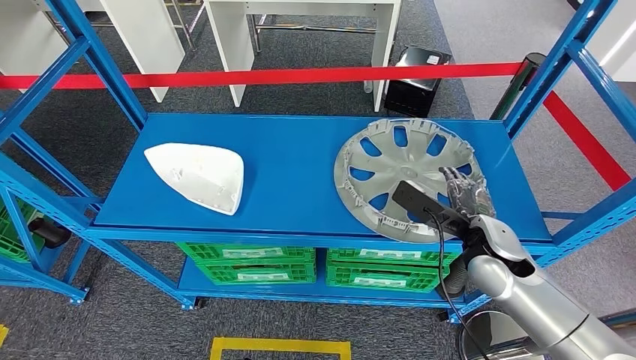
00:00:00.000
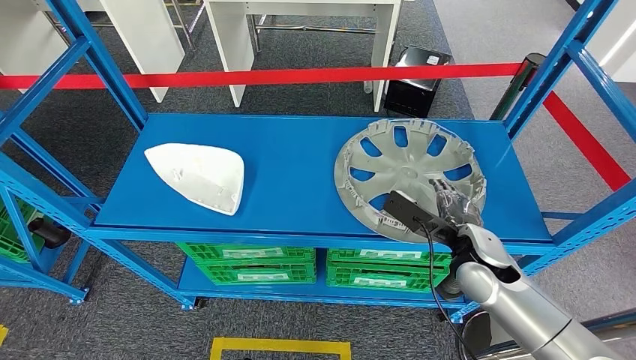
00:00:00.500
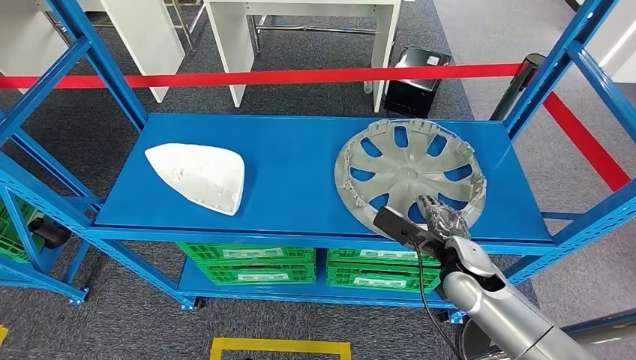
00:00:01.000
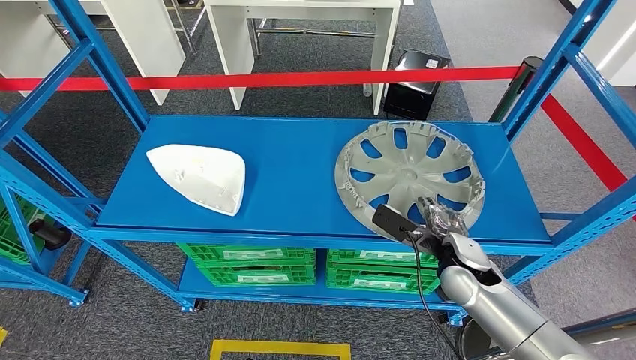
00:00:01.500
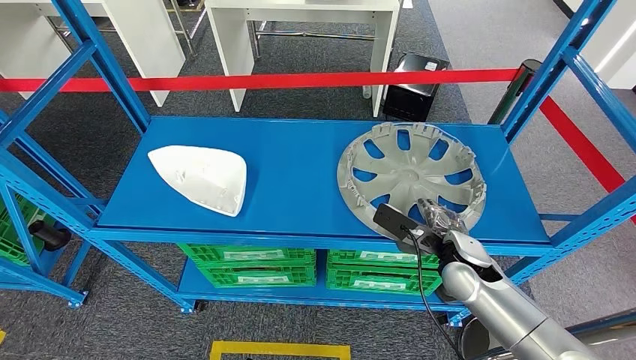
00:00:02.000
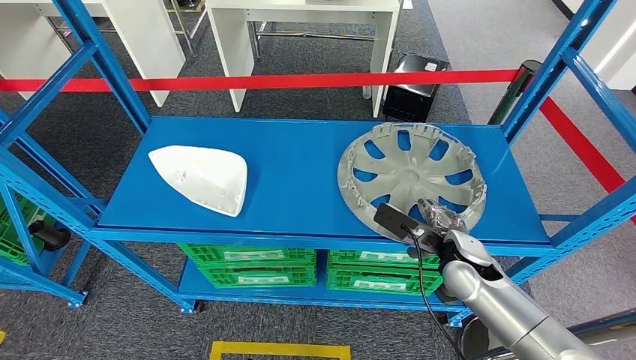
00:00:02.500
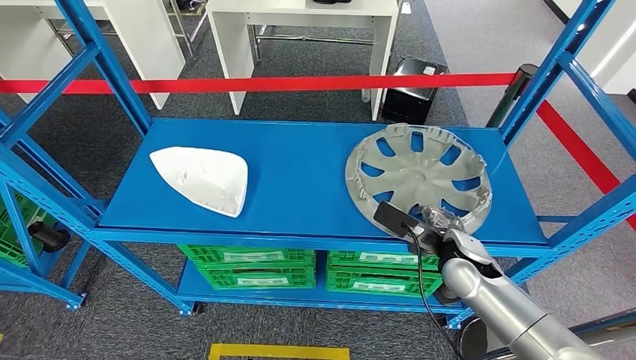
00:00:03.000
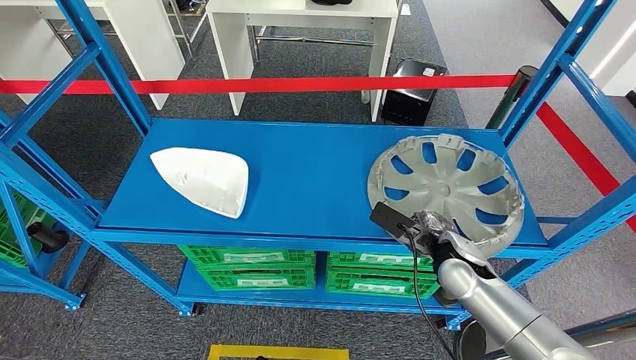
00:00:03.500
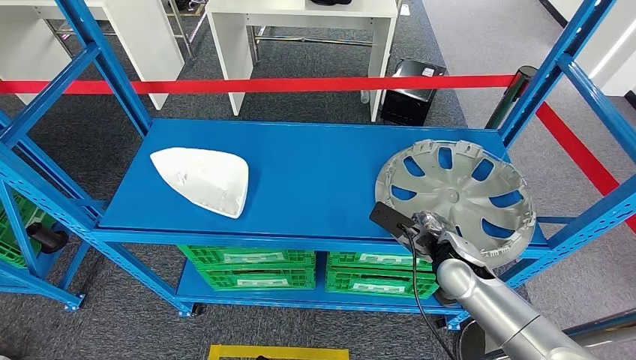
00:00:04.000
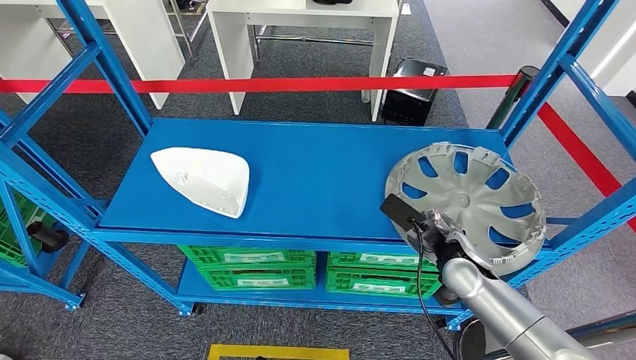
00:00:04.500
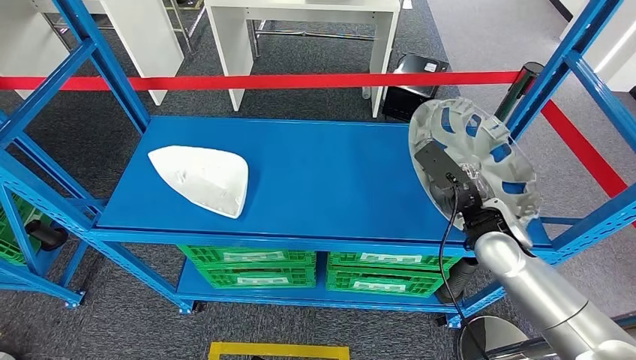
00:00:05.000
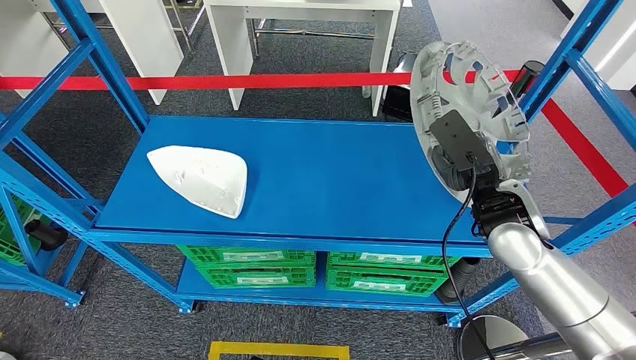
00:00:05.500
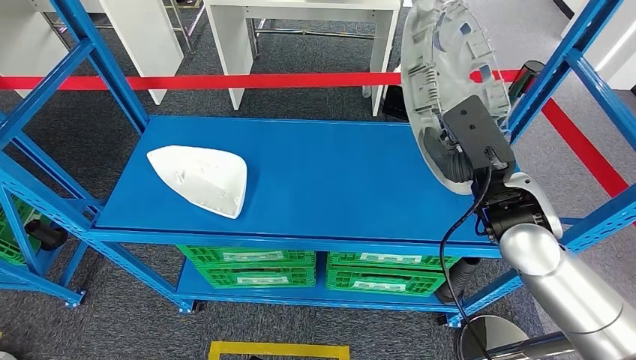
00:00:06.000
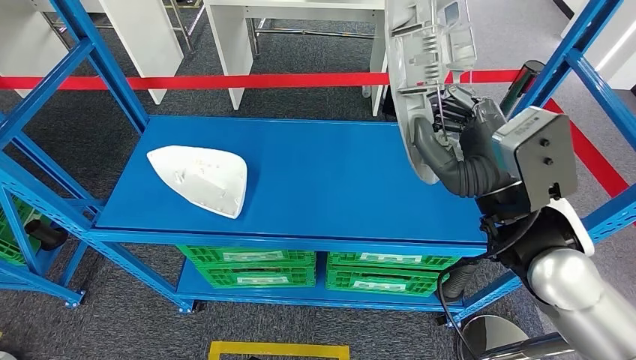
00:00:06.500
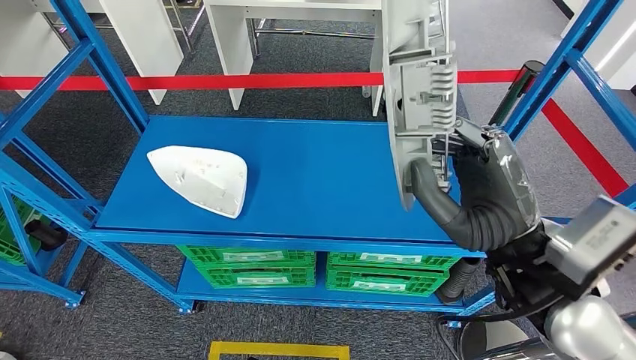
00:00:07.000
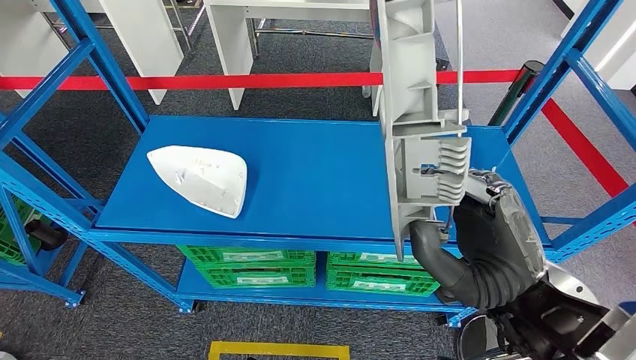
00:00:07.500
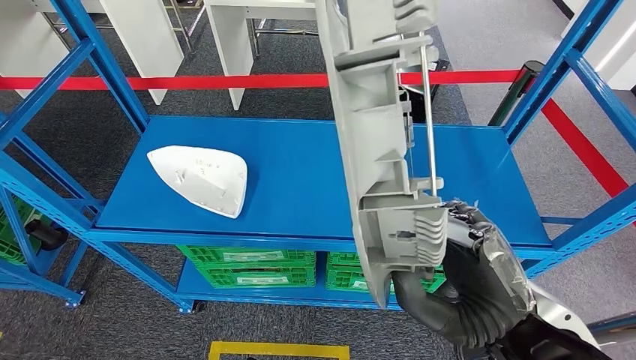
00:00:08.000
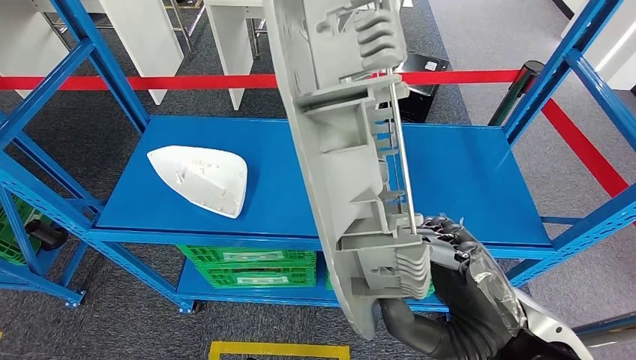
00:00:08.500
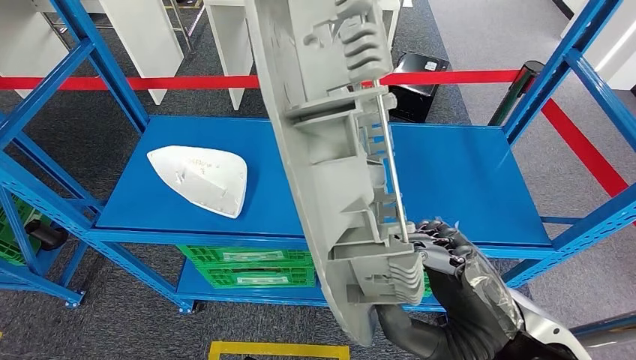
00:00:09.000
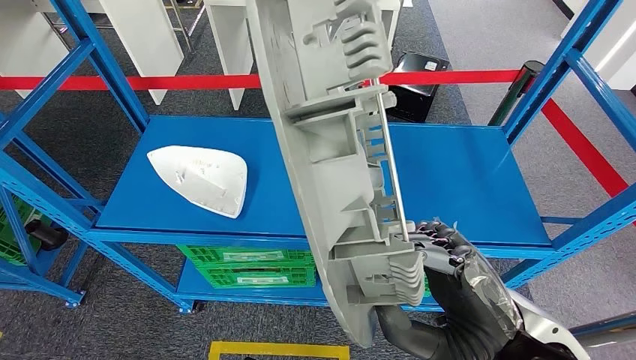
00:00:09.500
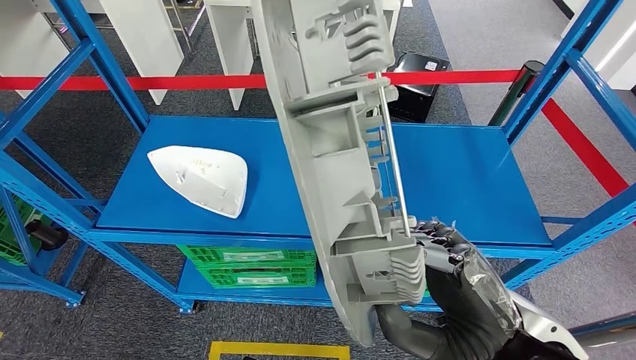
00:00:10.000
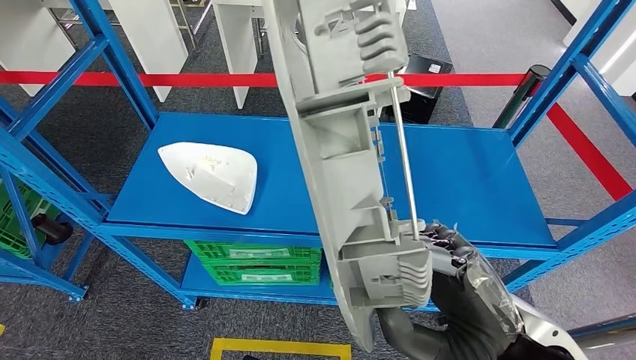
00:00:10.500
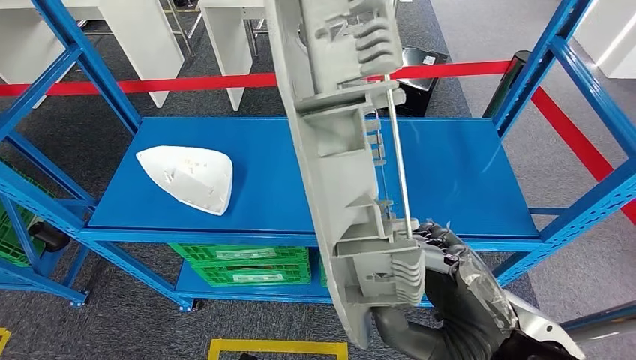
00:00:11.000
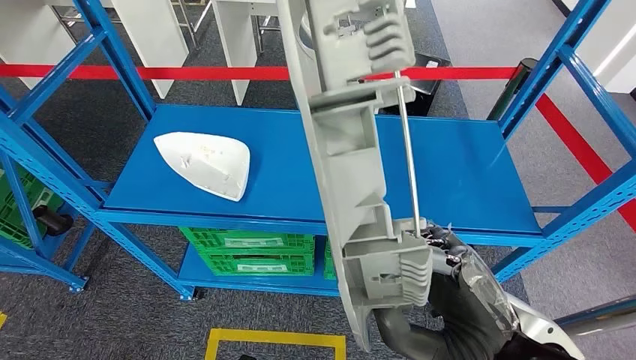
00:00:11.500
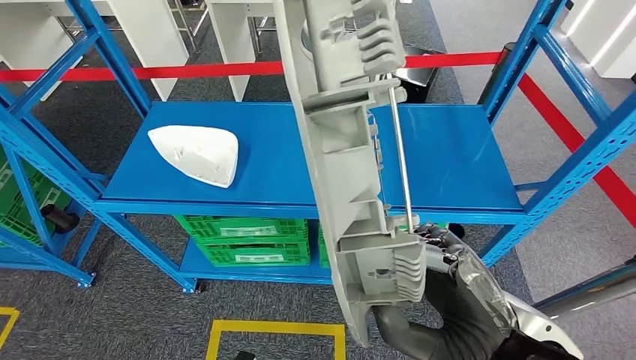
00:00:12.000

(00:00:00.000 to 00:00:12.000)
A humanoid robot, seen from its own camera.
Step, 00:00:00.000 - 00:00:07.500: Pick up the large material from the shelf.

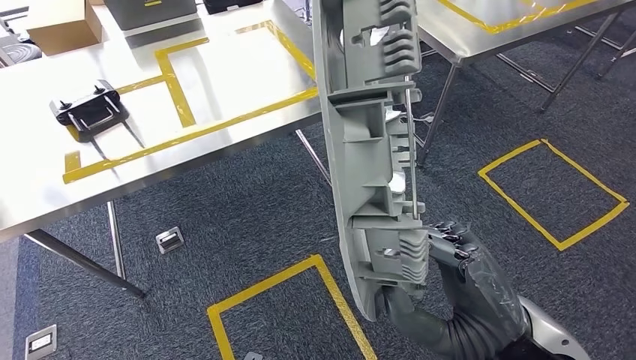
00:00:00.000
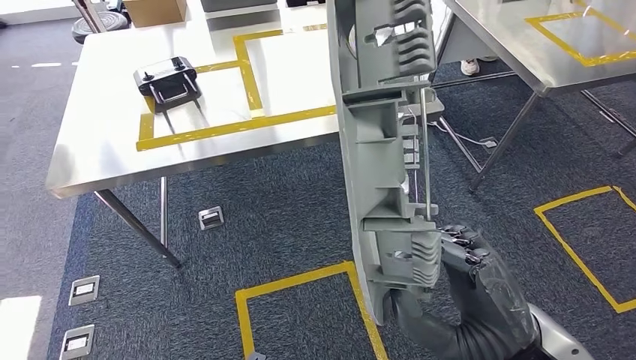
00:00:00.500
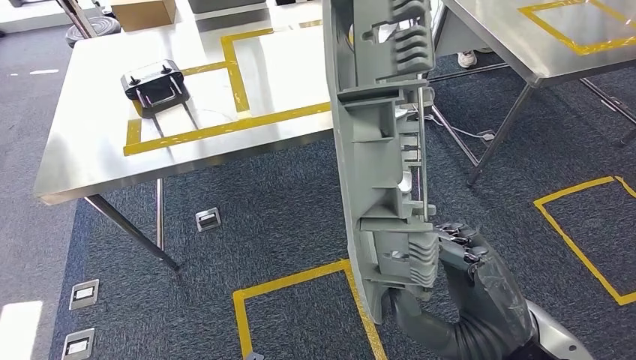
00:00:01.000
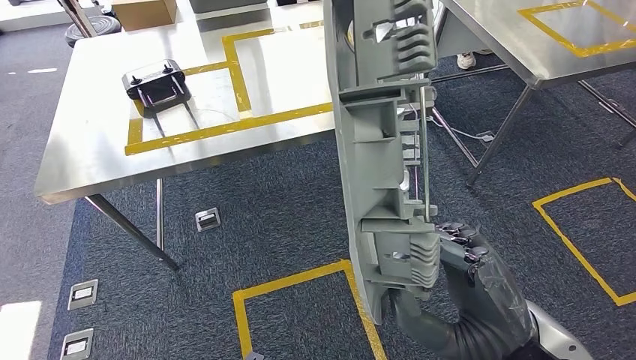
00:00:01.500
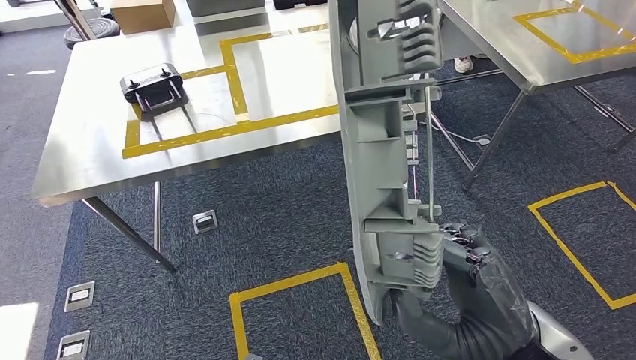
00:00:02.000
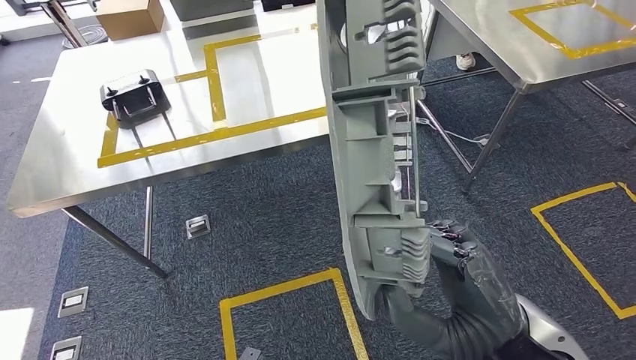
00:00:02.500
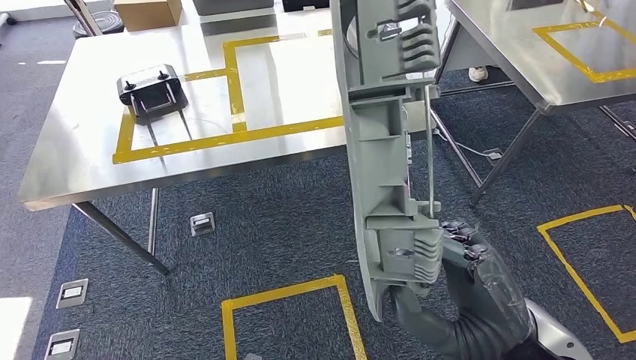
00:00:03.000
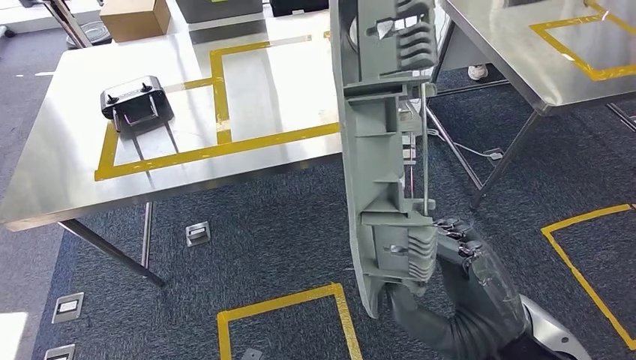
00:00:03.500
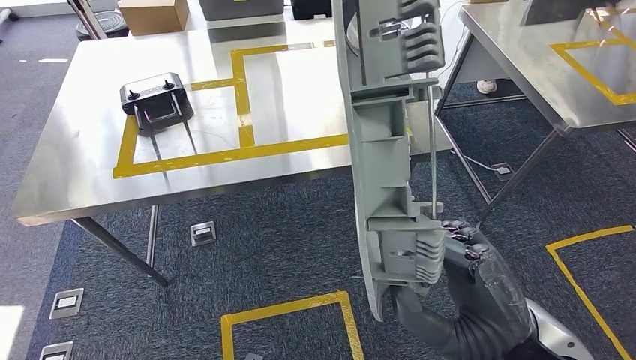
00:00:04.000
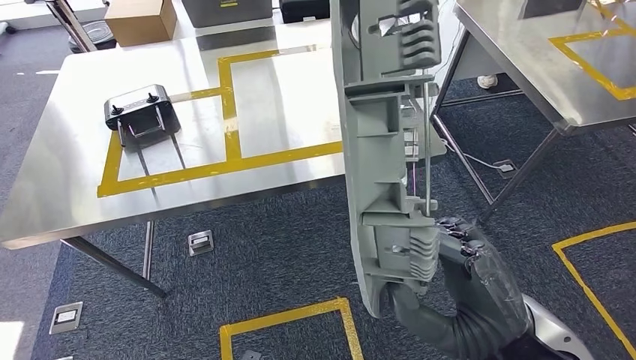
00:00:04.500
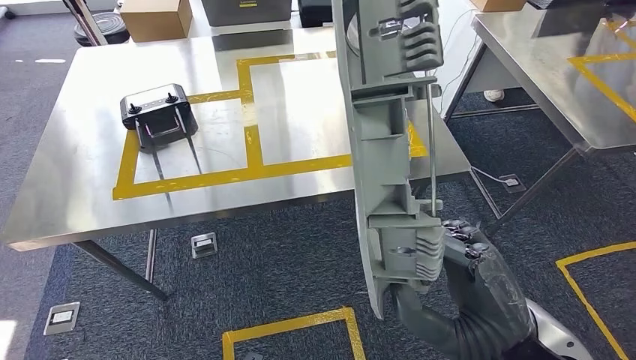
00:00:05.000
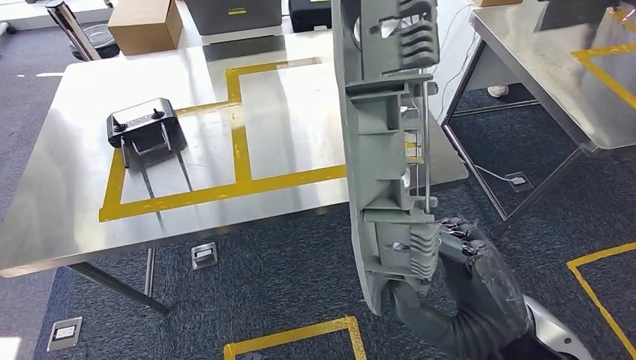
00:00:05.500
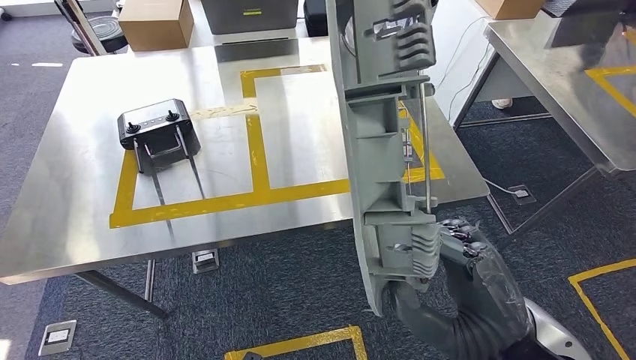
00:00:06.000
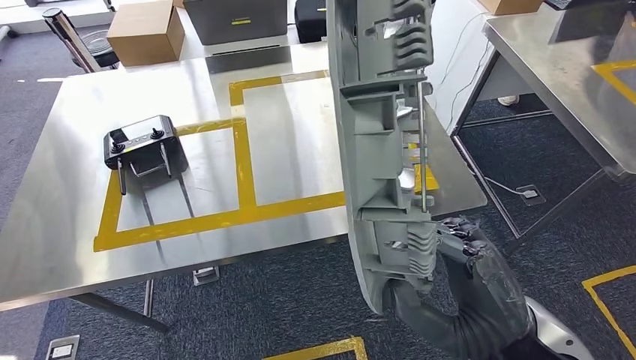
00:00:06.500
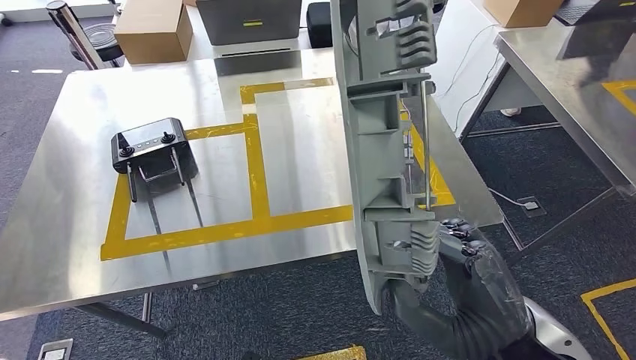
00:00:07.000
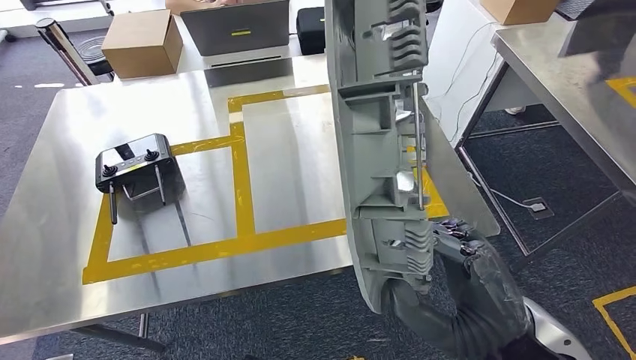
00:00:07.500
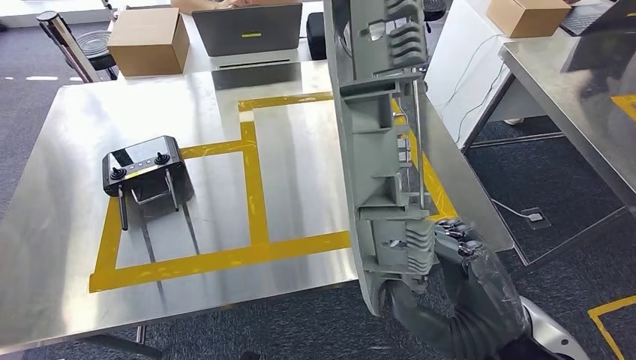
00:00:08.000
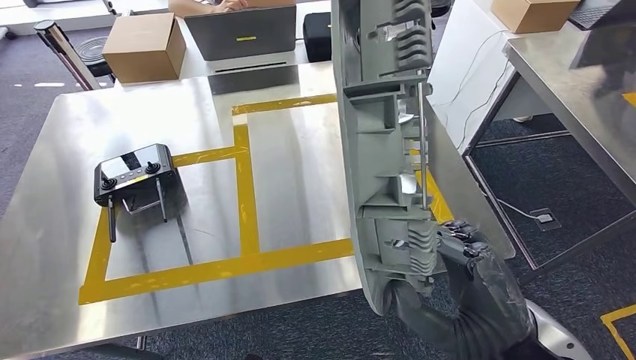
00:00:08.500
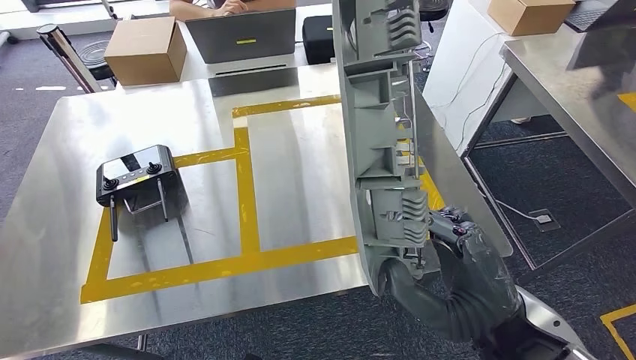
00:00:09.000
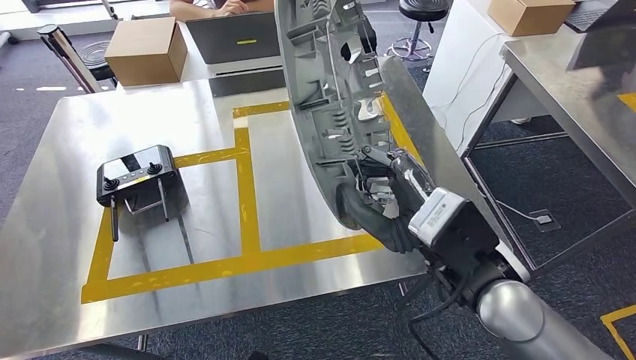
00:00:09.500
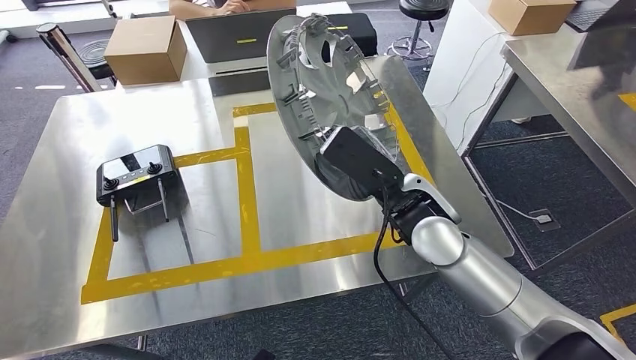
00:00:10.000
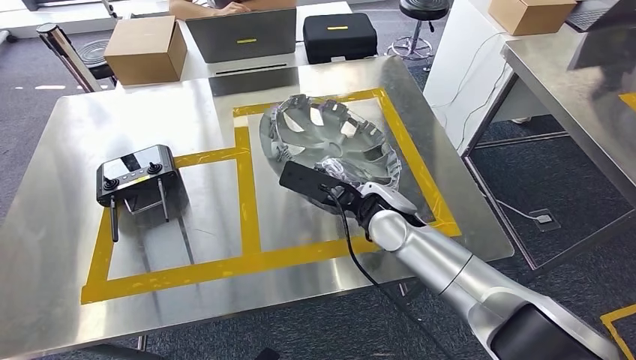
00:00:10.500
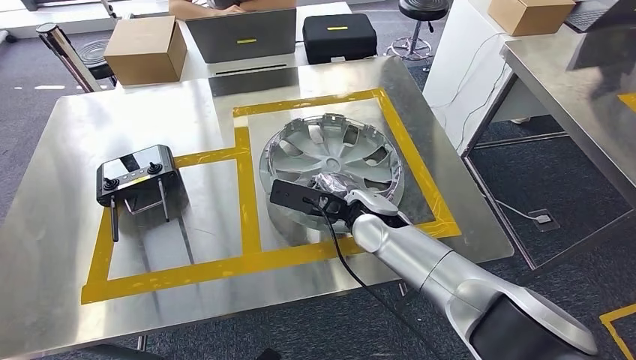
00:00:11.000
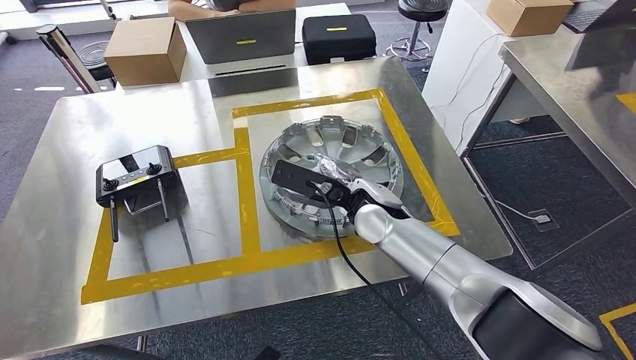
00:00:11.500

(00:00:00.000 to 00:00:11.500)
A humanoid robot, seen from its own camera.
Step, 00:00:00.000 - 00:00:03.000: Move the large material to the workbench.
